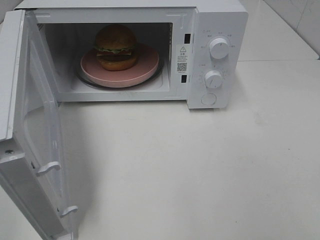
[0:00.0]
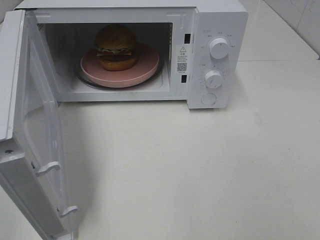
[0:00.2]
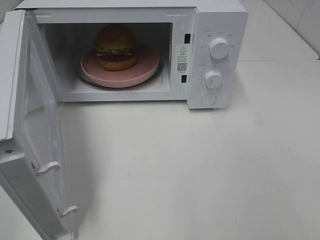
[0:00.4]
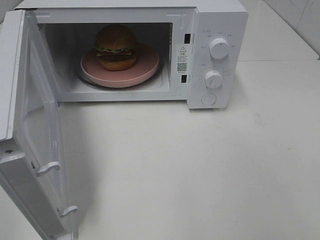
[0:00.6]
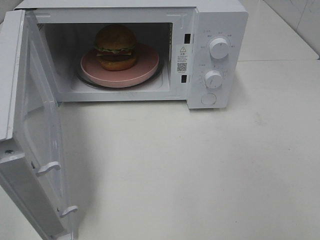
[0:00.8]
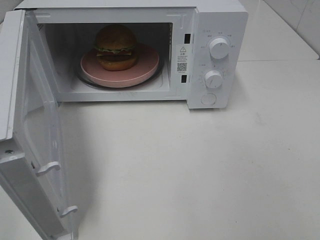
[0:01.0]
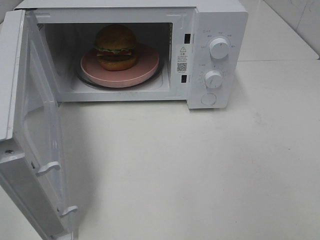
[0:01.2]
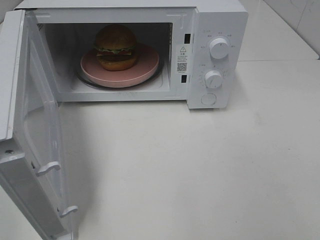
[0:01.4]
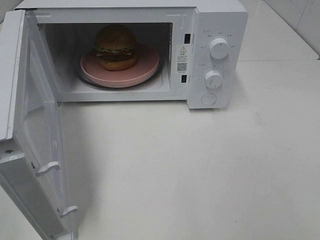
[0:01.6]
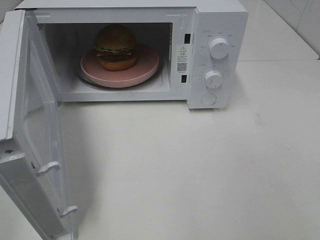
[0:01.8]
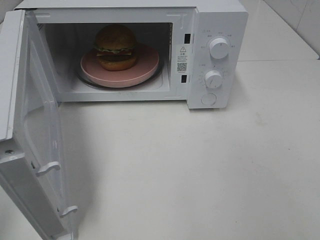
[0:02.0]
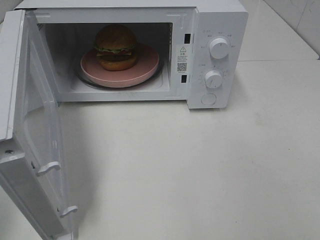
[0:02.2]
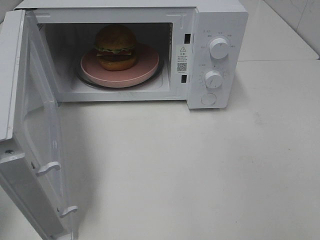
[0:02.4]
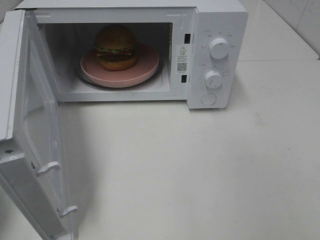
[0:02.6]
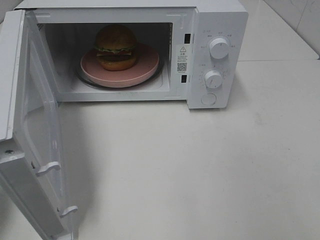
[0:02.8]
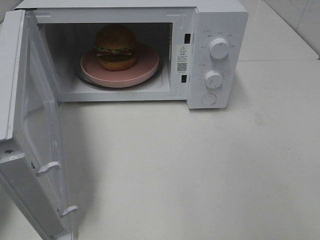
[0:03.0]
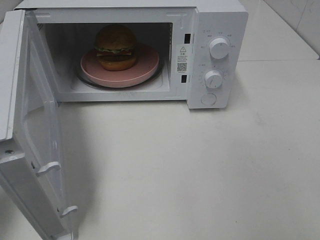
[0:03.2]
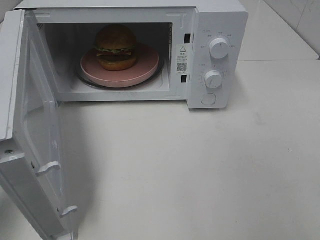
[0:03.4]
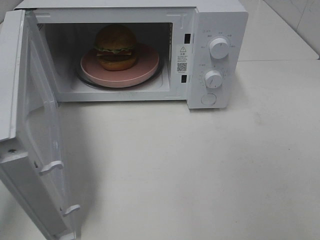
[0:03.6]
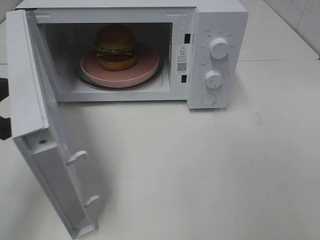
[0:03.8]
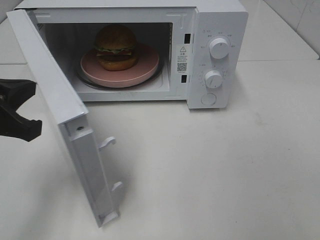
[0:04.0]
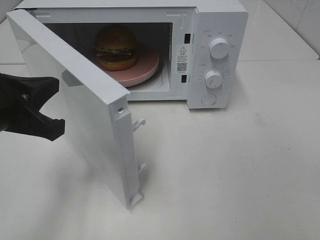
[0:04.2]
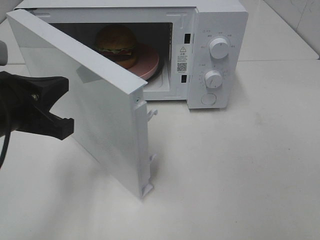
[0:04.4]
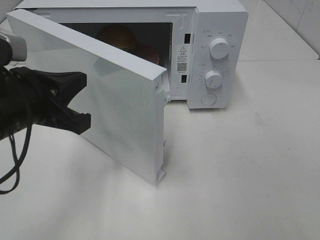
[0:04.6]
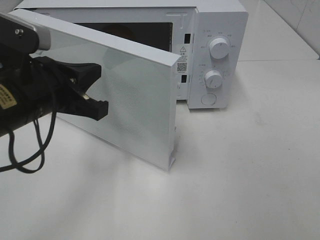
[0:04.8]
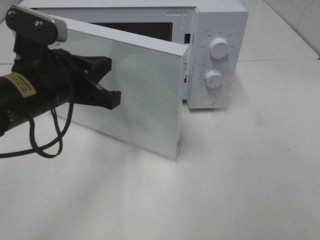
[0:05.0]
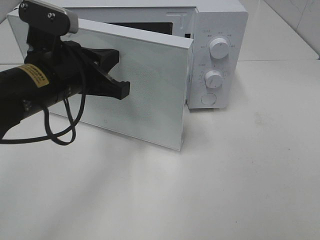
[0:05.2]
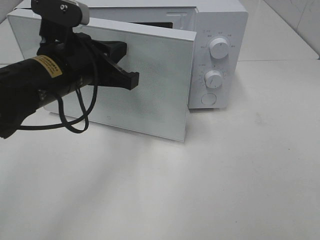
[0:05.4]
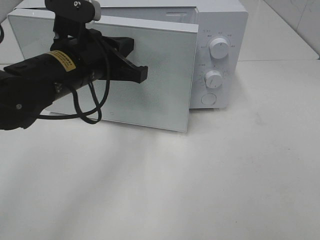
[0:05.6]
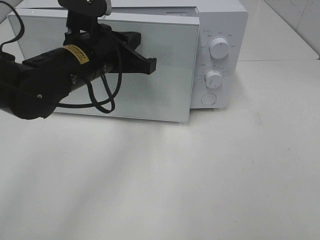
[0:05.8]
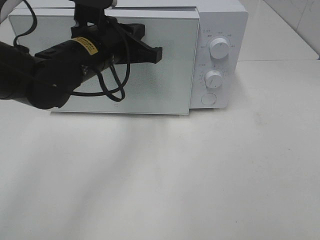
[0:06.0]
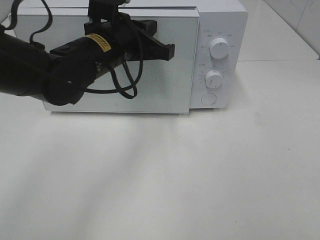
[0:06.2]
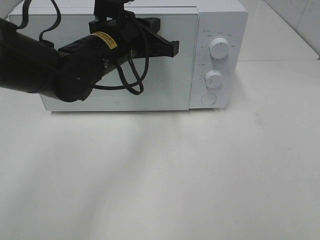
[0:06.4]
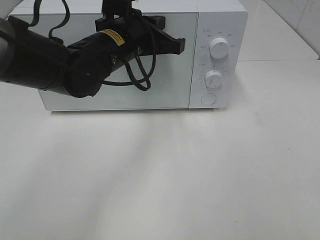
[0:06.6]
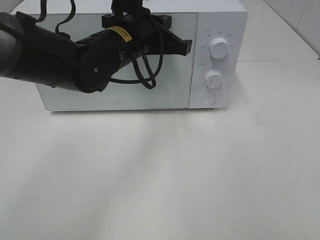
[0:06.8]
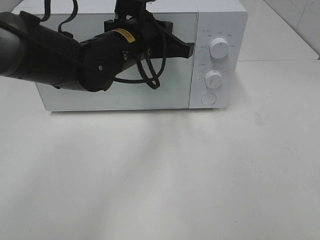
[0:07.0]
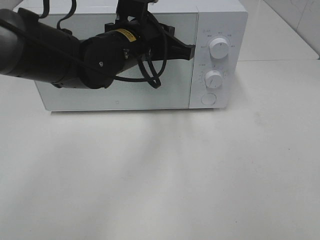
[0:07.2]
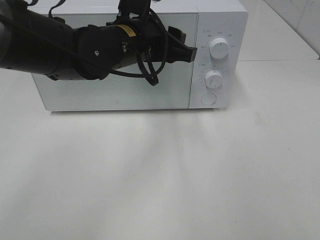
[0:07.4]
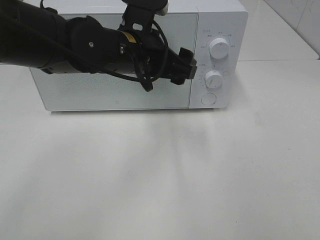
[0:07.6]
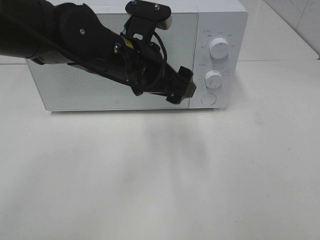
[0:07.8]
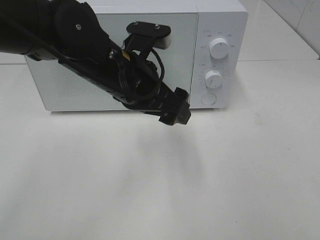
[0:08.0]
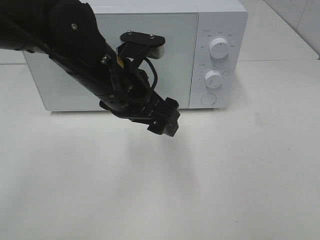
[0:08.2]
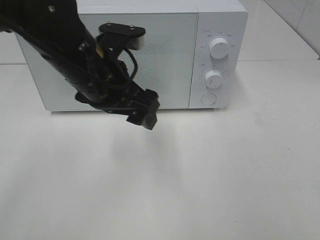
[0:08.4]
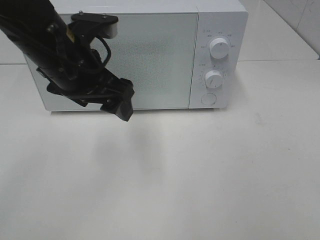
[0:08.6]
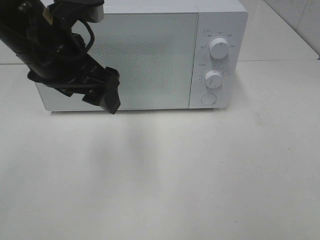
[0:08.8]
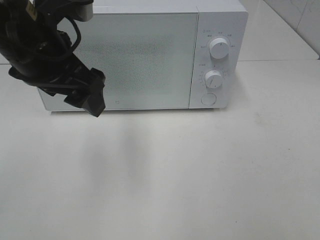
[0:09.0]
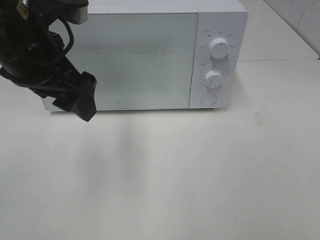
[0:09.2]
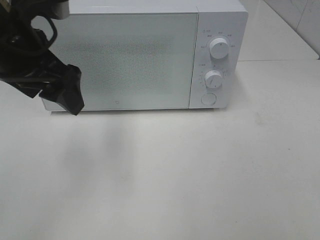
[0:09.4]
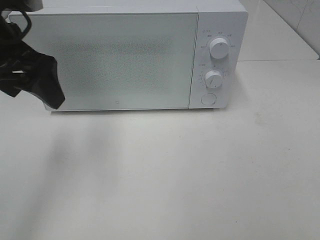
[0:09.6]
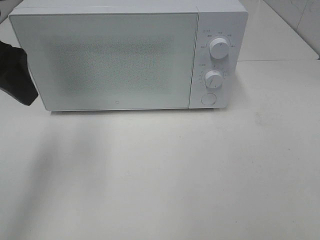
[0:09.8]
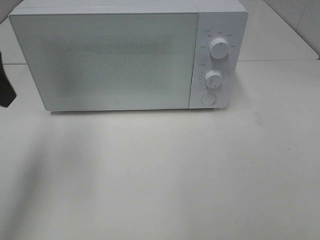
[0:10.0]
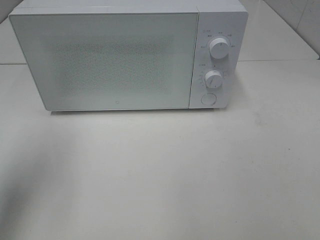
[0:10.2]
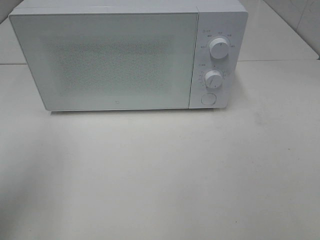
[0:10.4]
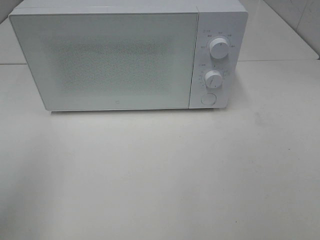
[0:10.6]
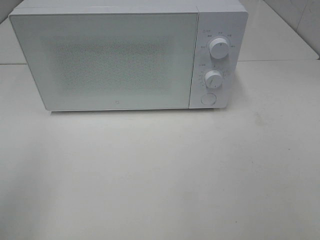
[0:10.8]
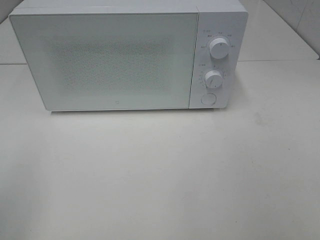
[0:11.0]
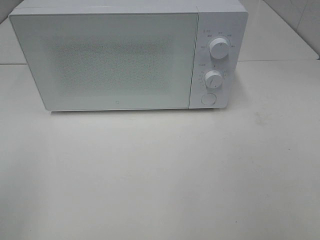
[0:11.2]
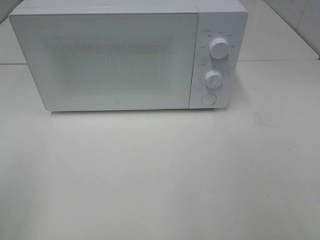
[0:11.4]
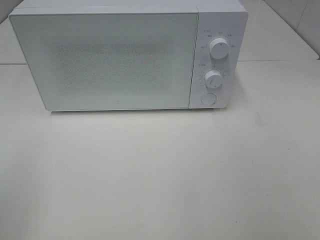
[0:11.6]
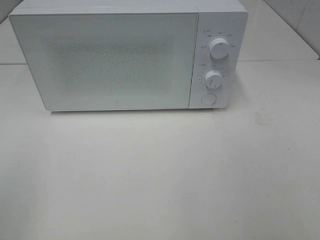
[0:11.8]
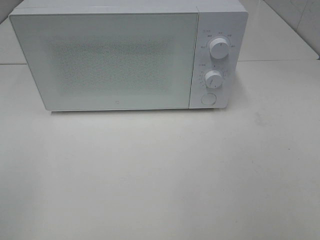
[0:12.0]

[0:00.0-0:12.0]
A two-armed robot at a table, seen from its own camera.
Task of the whole recording: Heat the burger.
Step, 0:00.0 to 0:07.4: Left hand: close the microwave door.
0:00.0 to 0:01.6: Both grippers stay put.
0:03.0 to 0:04.4: The left gripper goes some 15 cm to the right.
0:04.4 to 0:06.0: The left gripper travels forward and to the right by roughly 15 cm.
0:06.0 to 0:07.6: The left gripper goes roughly 5 cm to the right, and opens its fingers.
0:07.6 to 0:09.0: The left gripper heads to the left, upward and backward, covering approximately 15 cm.
0:09.0 to 0:10.4: The left gripper moves to the left and backward, about 20 cm.
0:10.4 to 0:12.0: The left gripper goes about 15 cm backward.

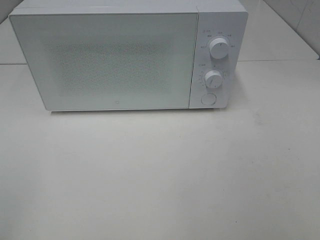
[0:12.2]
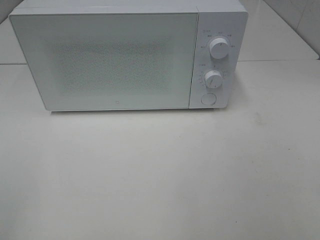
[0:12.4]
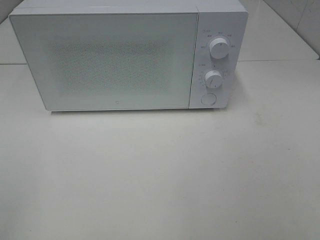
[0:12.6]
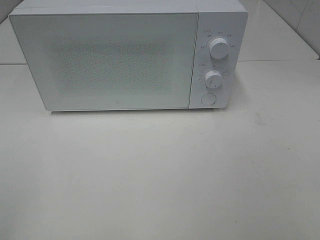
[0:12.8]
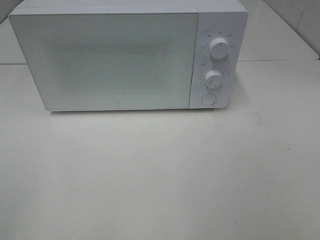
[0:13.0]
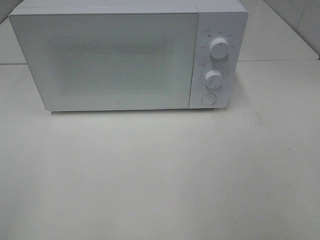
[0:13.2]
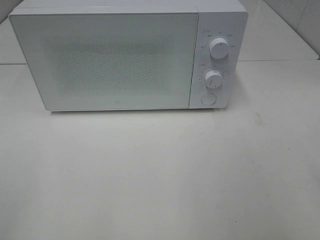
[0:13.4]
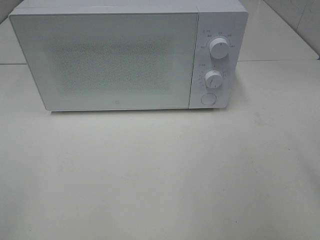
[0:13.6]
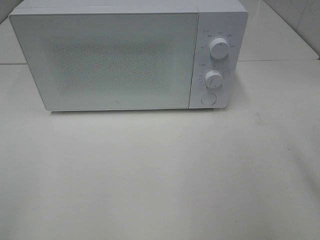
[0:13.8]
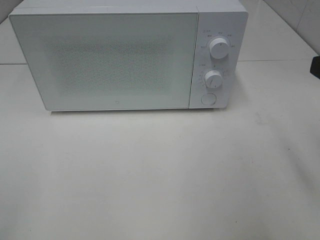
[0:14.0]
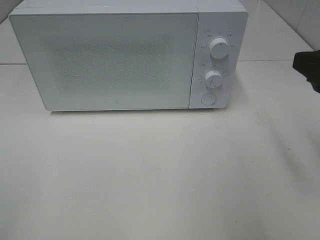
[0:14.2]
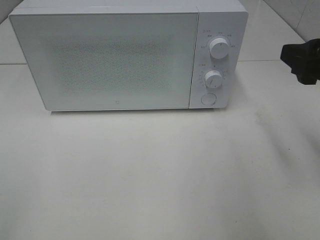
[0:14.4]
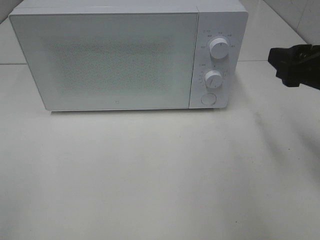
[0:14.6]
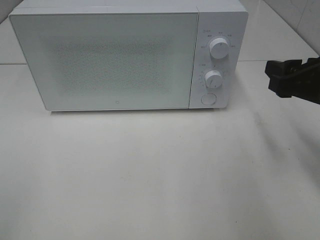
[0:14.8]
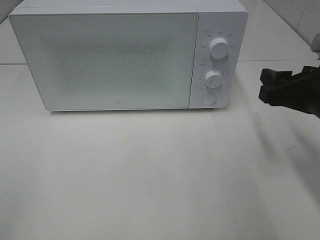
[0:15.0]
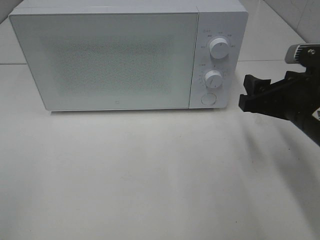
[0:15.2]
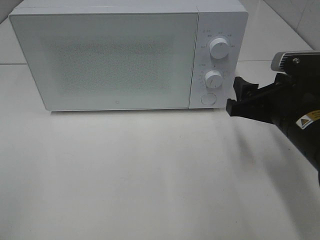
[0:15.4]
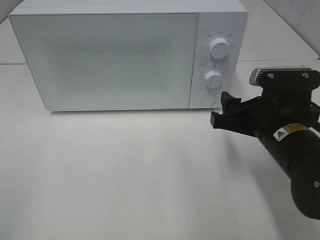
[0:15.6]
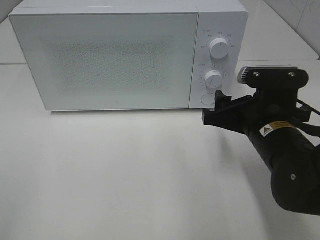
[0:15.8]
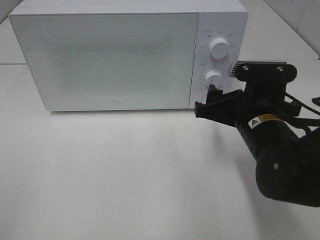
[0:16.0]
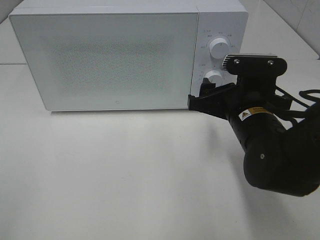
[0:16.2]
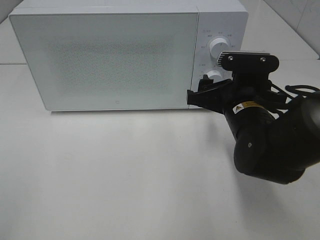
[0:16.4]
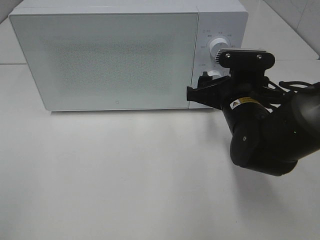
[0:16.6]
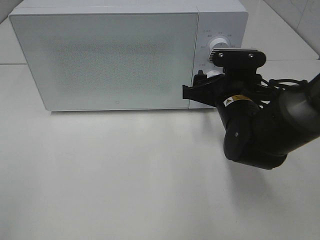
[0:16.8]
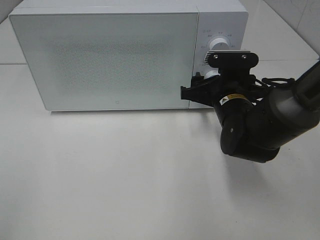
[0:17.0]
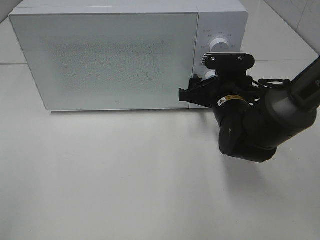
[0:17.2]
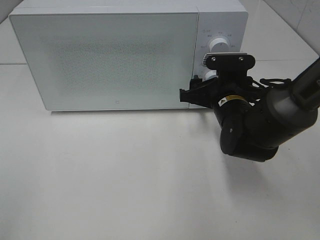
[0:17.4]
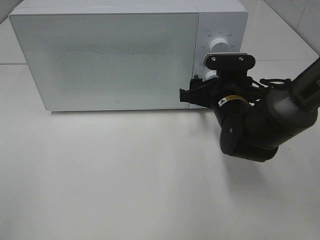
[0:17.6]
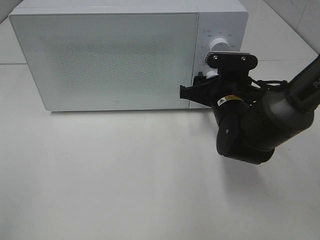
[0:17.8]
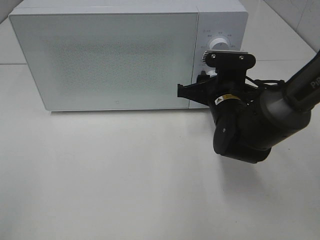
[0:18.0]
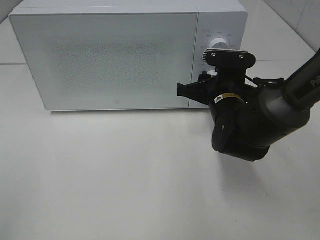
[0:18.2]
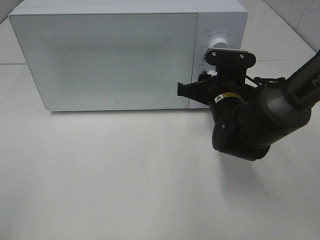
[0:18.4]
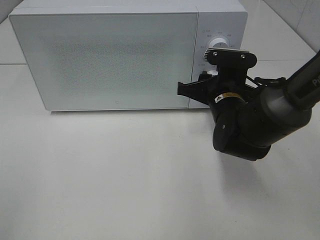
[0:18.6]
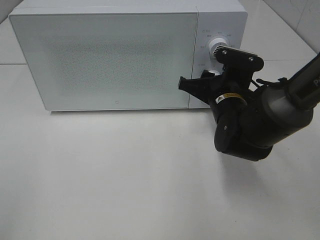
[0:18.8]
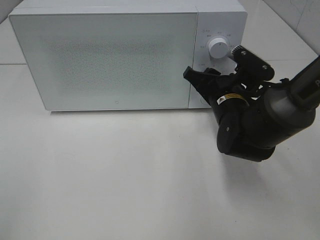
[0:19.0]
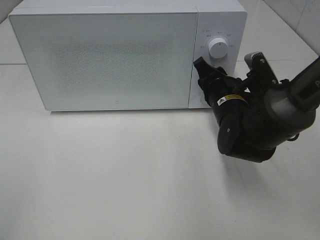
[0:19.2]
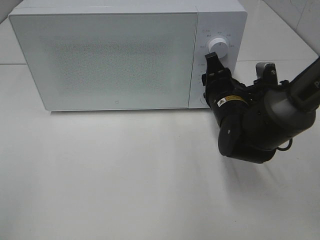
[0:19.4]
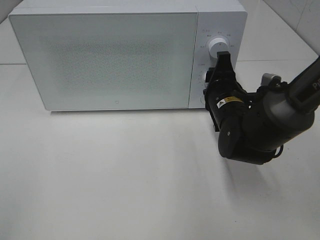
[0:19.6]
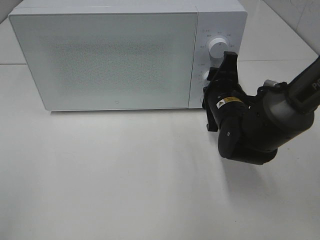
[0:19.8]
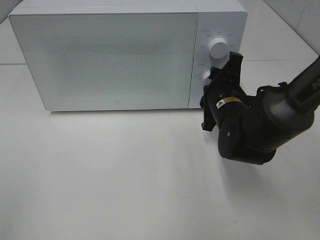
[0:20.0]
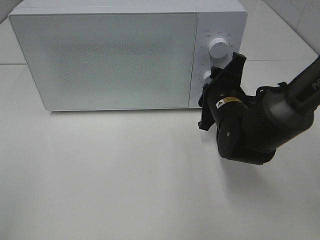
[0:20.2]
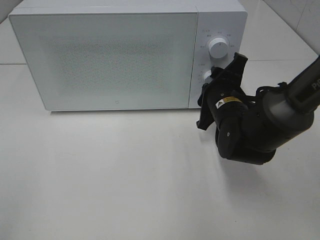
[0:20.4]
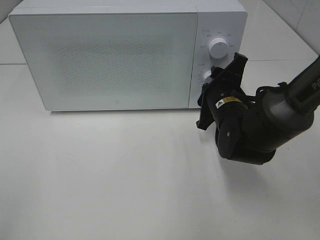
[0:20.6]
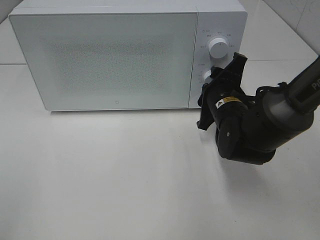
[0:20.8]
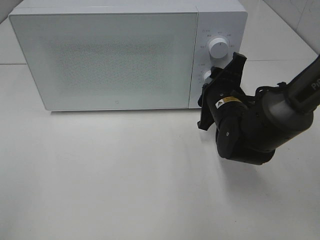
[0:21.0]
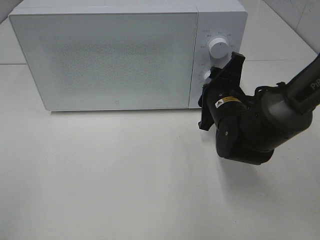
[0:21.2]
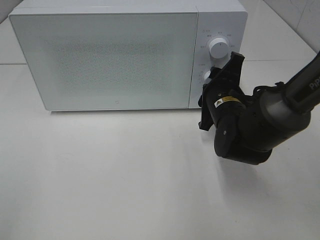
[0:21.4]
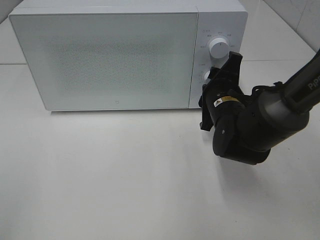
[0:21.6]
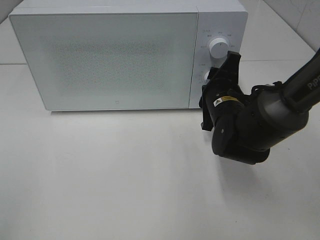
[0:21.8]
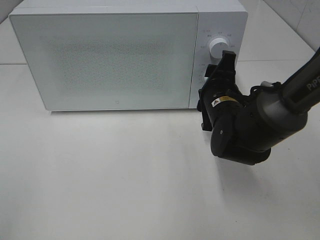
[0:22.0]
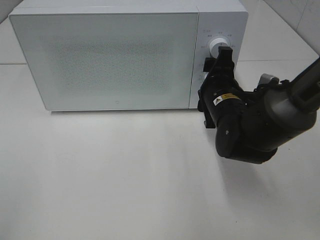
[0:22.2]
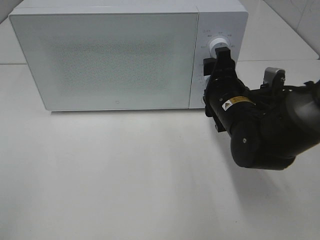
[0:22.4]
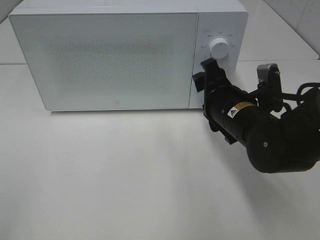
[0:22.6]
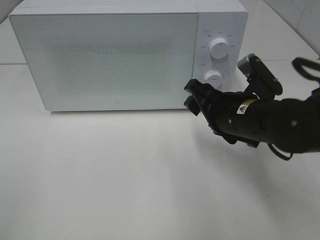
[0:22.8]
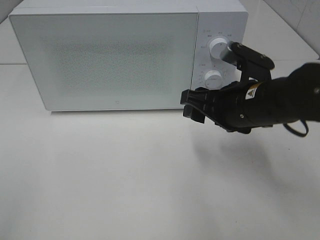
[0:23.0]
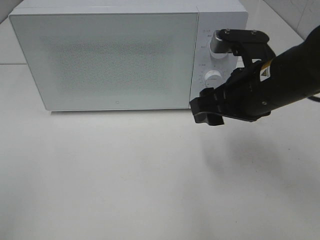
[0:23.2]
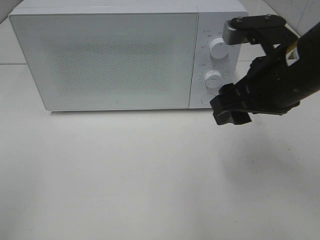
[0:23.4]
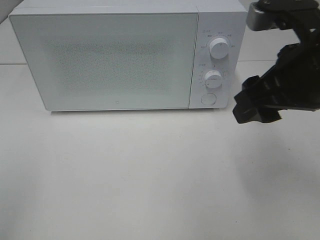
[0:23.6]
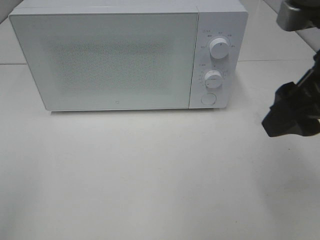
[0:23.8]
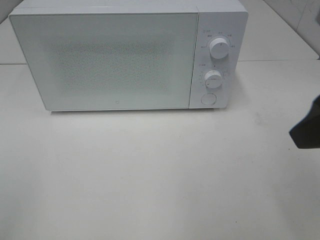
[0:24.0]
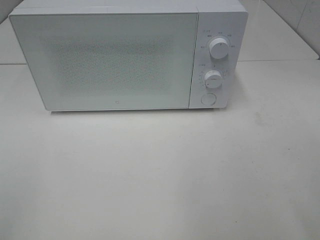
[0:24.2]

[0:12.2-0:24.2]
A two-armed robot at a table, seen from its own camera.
Task of the whole recording: Heat the burger.
Step, 0:12.2 to 0:21.8: Right hand: twist timer button.
0:13.8 to 0:15.2: The right gripper heads downward, forward and to the left, covering about 15 cm.
0:15.2 to 0:16.6: The right gripper is displaced to the left and forward by some 10 cm.
0:16.6 to 0:18.2: The right gripper closes.
0:19.8 to 0:21.2: There are only small adjustments of the grippers.
0:21.2 to 0:22.6: The right gripper changes place by roughly 5 cm.
0:22.6 to 0:24.2: The right gripper travels backward, upward and to the right by roughly 25 cm.
